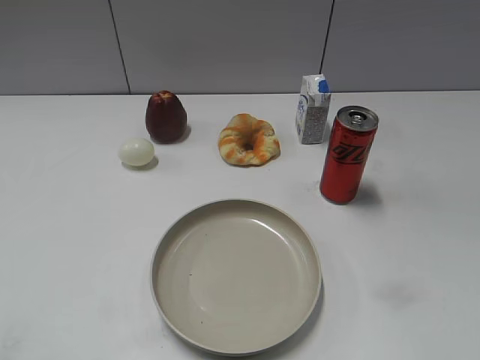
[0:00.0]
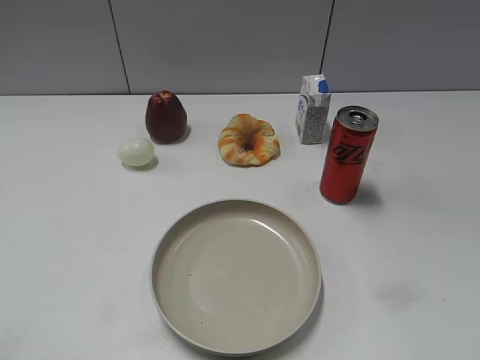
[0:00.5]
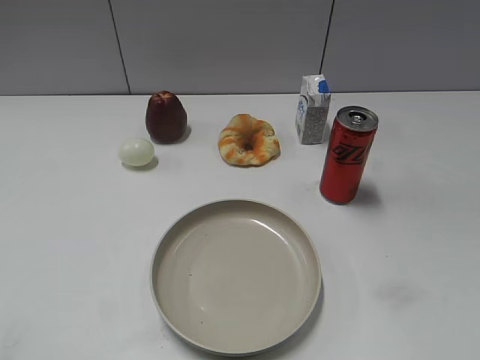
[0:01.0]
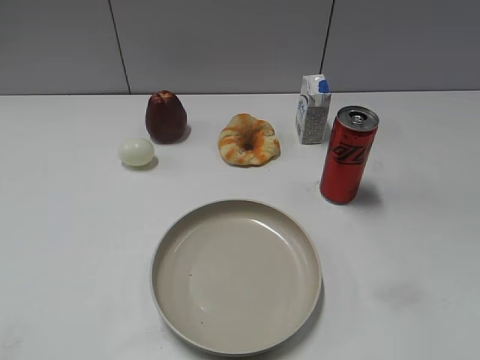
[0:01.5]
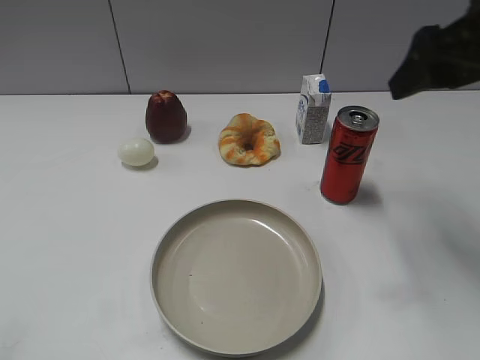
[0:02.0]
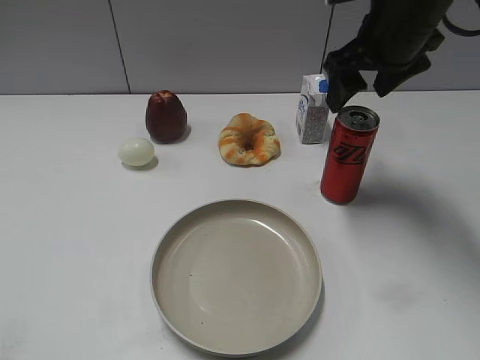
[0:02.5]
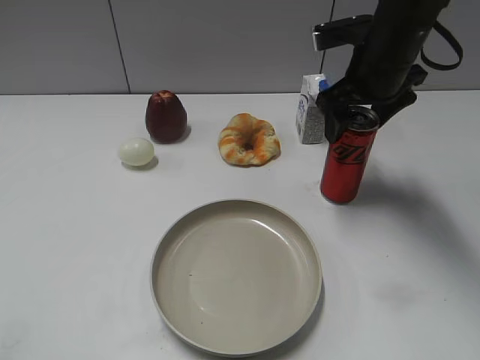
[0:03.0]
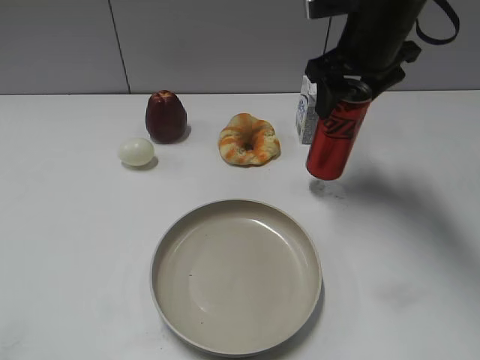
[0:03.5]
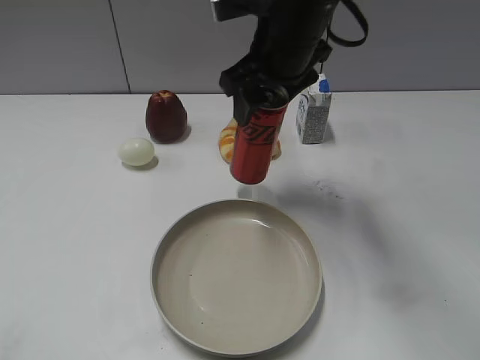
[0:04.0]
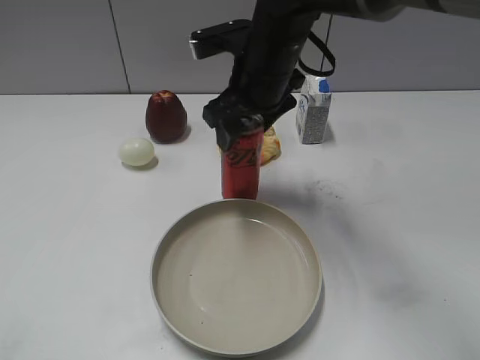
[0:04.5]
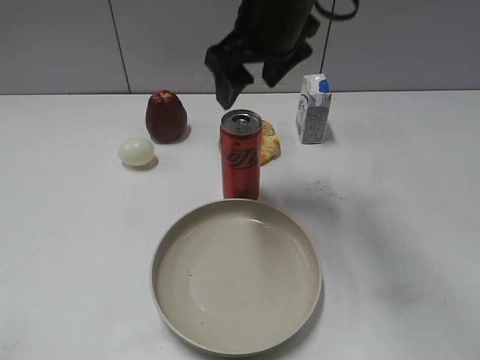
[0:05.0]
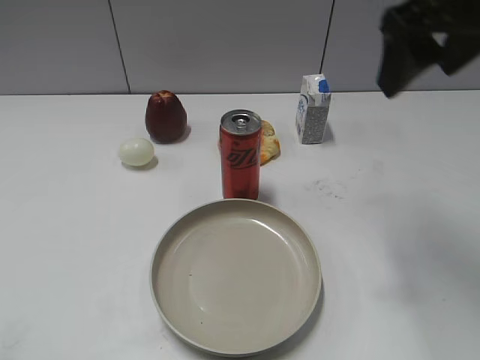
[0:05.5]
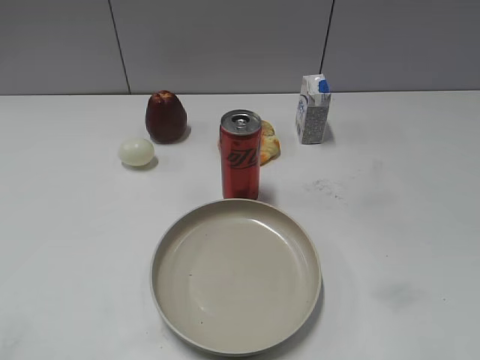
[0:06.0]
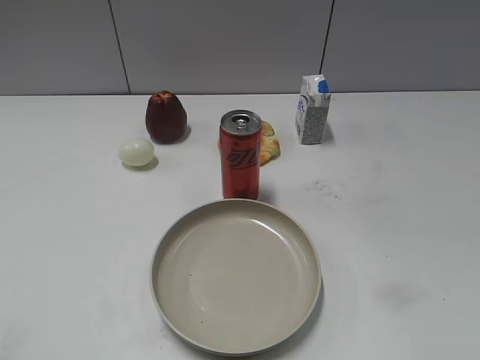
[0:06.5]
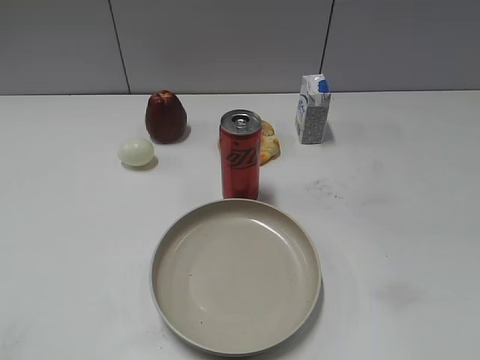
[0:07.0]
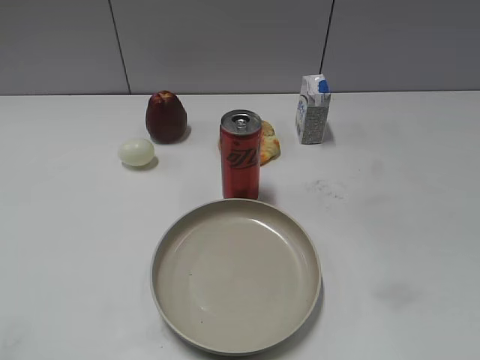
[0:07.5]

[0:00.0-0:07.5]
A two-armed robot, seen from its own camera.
Step, 0:01.0 to 0:03.0: Grasp the cola with right gripper.
Step, 0:03.5 to 0:05.0: Place the cola on the table with right gripper.
0:02.0 to 0:04.0: The right gripper goes approximately 20 cm to the left and forward, and closes.
0:04.0 to 0:05.5: The right gripper shifts roughly 20 cm to the right, upward and backward, and opens.
0:05.5 to 0:07.5: The right gripper goes about 30 cm backward and to the right.
